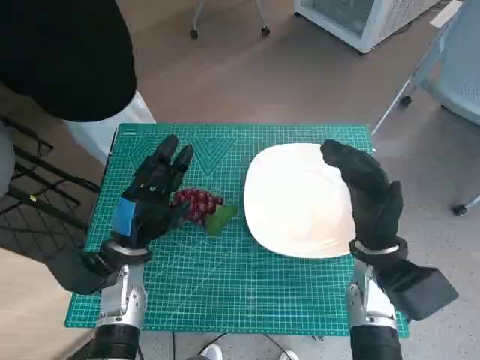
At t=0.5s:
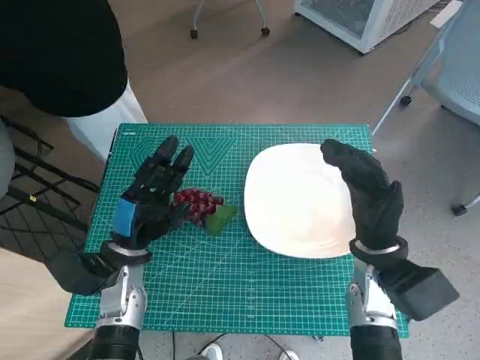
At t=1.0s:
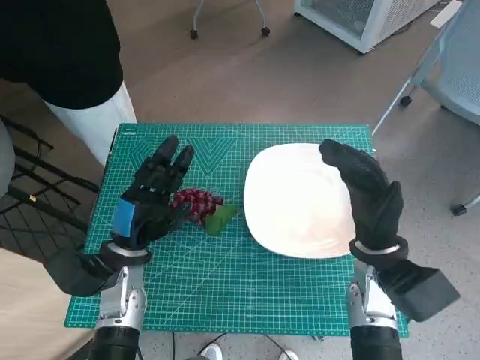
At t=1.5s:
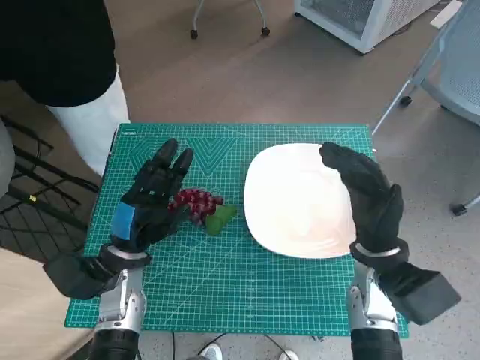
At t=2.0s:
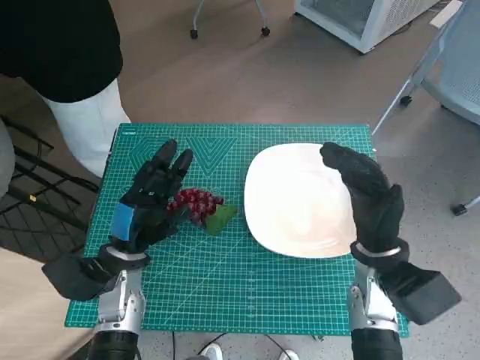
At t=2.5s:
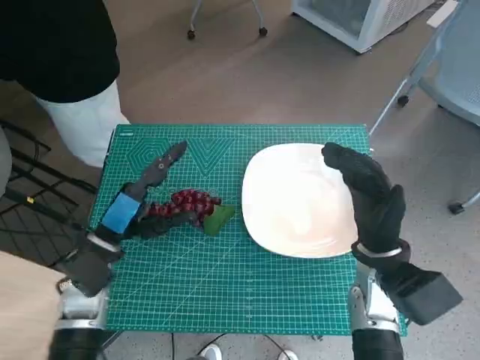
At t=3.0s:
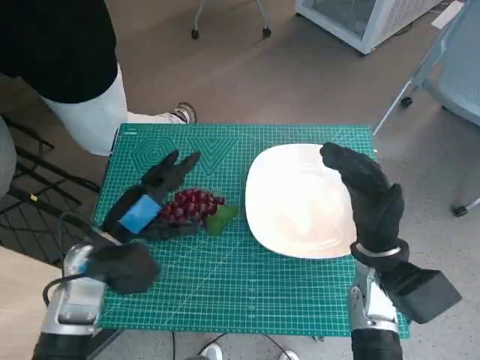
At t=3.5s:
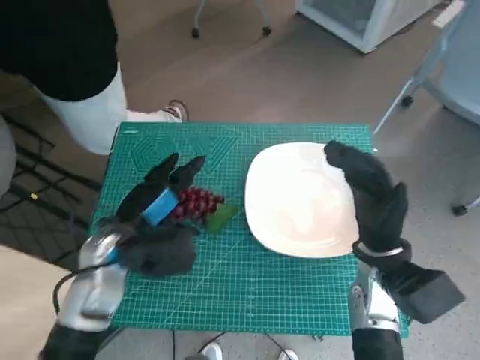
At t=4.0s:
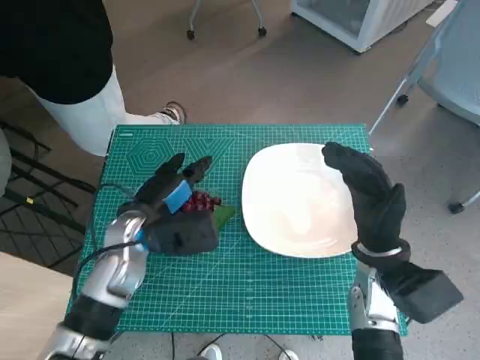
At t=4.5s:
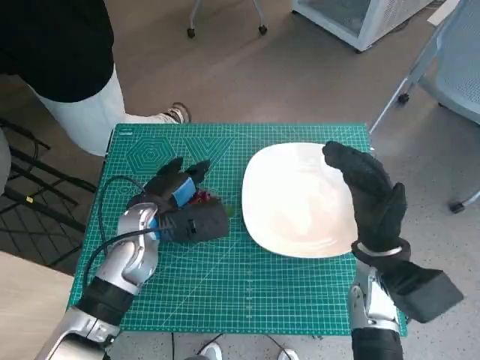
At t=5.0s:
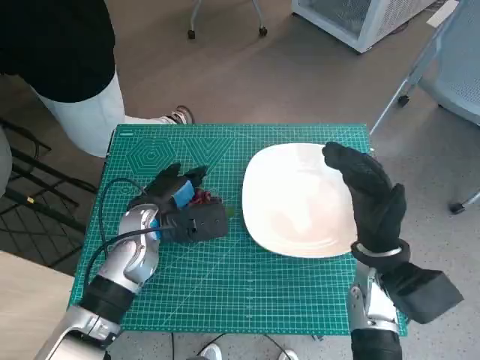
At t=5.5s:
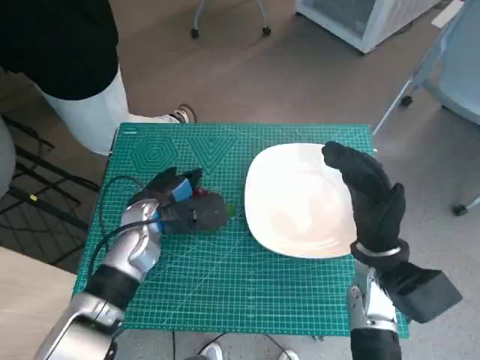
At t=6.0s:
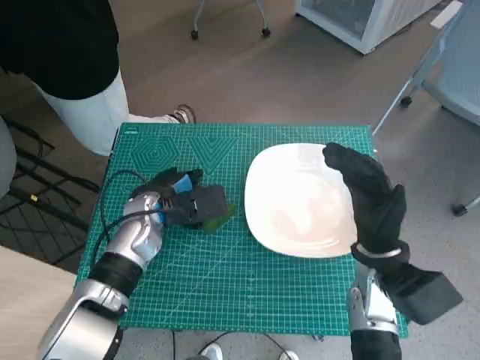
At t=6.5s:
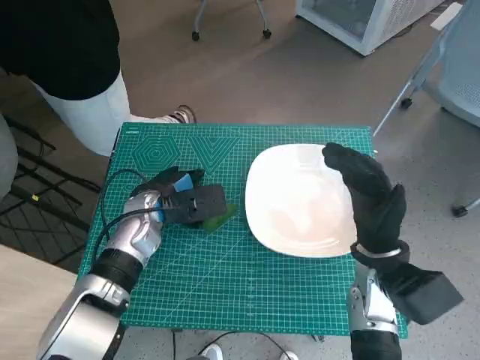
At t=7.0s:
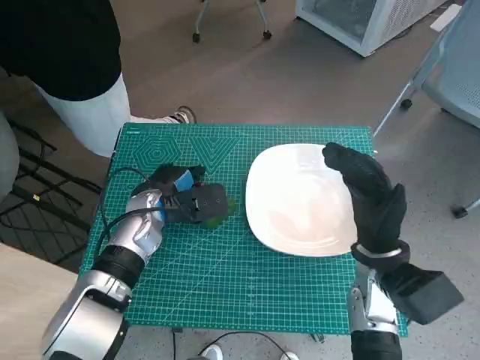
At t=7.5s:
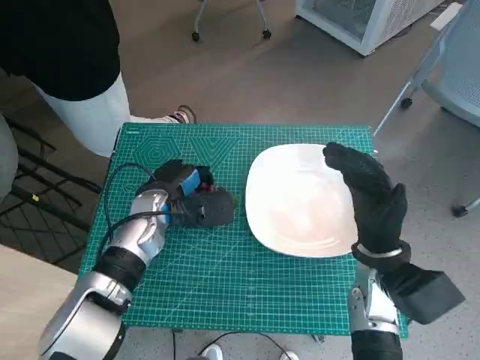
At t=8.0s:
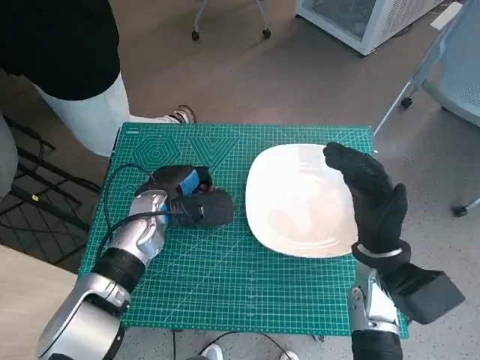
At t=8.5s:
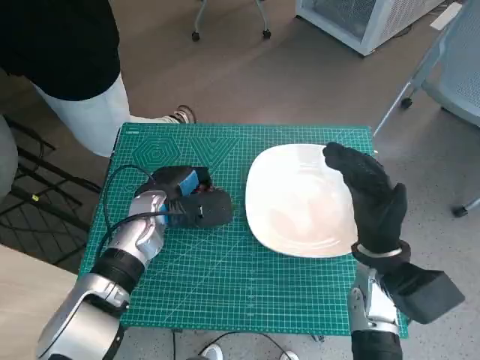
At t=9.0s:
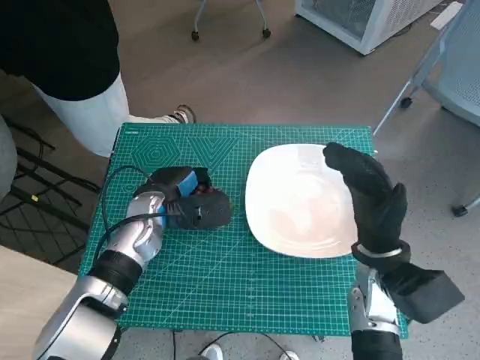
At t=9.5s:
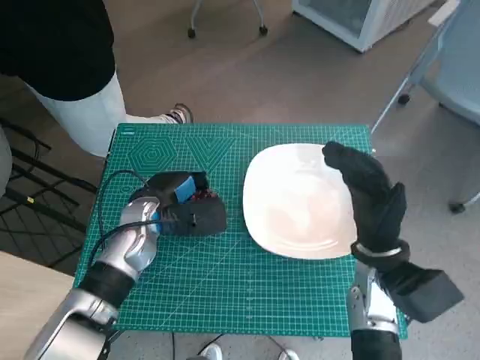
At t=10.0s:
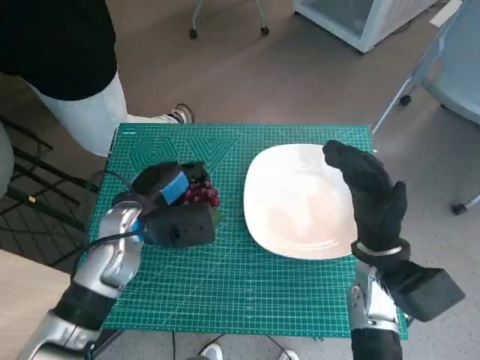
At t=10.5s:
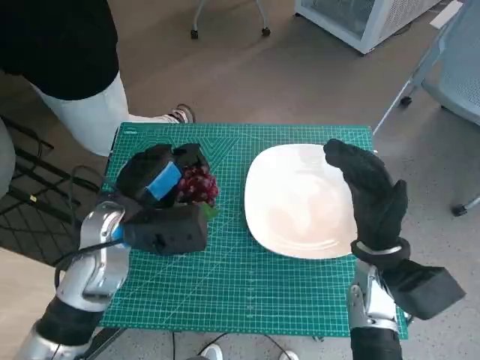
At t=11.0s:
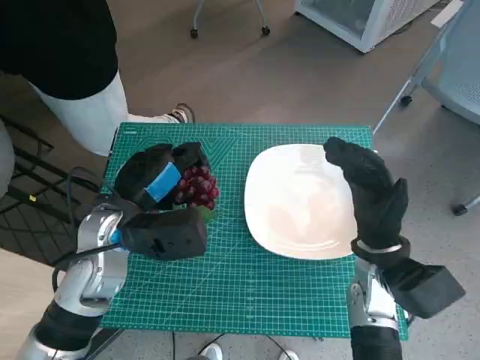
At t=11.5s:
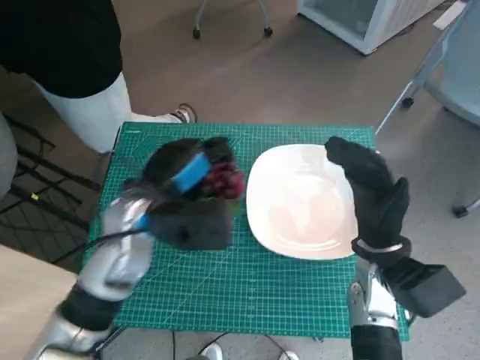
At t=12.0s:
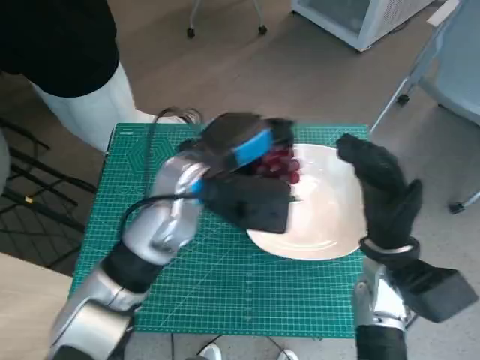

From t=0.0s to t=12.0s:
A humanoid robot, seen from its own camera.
Task of the whole recording: Pick up the grapes and put them on the plate.
Step, from t=0.0s to t=7.0s: Grasp the grapes with left hand.
From t=2.0s to t=4.0s: The left hand moves upward, roughly 5 cm.
From t=6.0s to t=8.0s: The hands make only small movements.
From t=8.0s to t=10.0s: The left hand changes place by about 5 cm.
From t=10.0s to t=12.0s: The left hand travels to the right and upward by approximately 10 cm.

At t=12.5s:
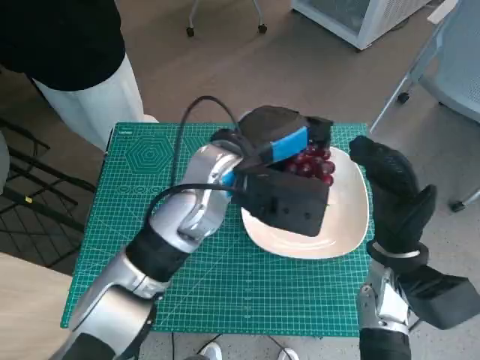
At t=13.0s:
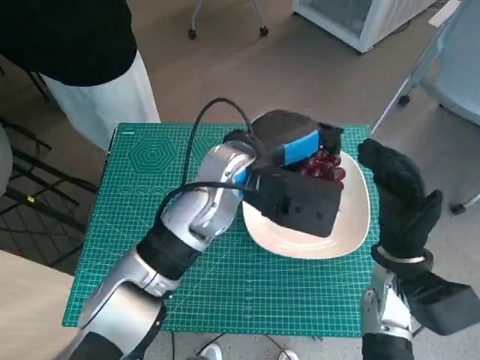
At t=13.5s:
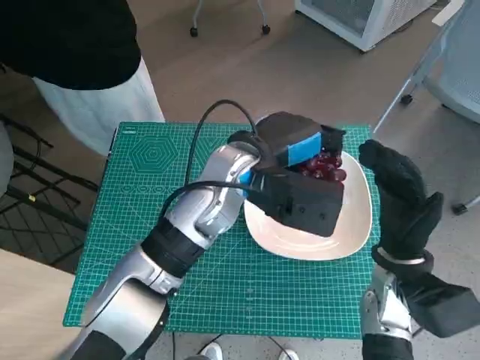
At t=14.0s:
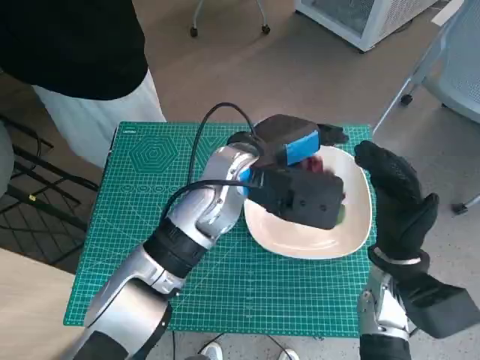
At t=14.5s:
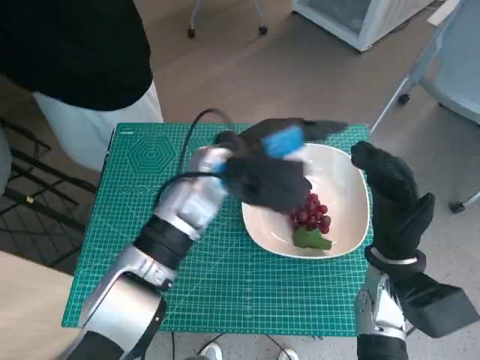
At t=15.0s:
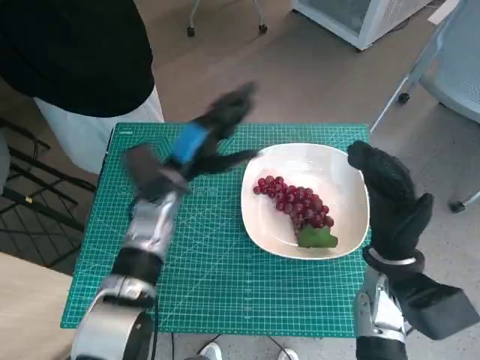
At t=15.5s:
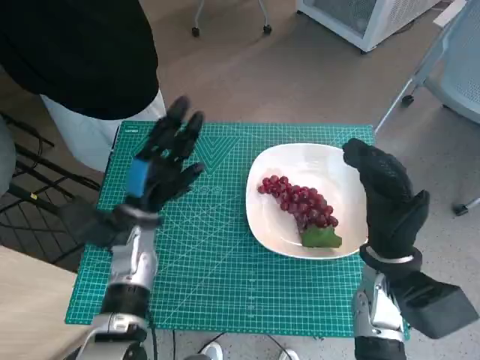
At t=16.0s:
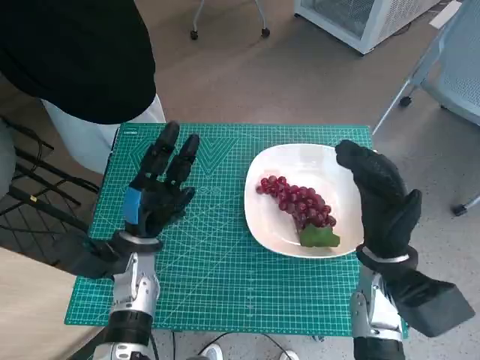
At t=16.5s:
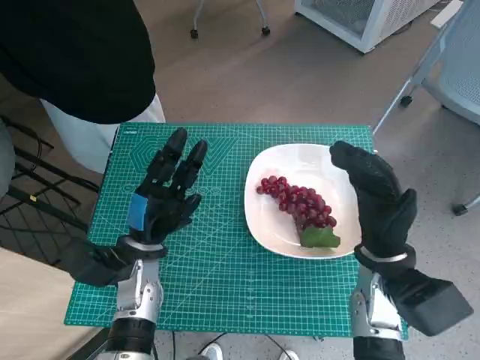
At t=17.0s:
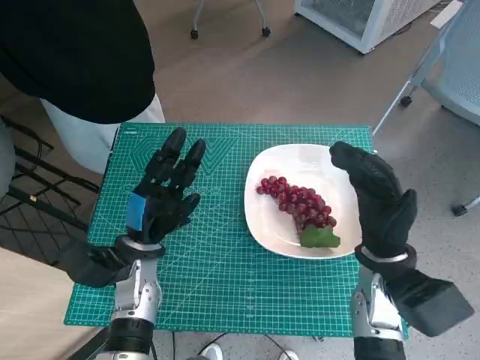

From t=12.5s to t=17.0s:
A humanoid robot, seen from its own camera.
Task of the whole recording: Pick up the grapes and put them on the plate.
From t=14.5s to t=17.0s: The left hand heads downward, to the left and backward, covering approximately 20 cm.

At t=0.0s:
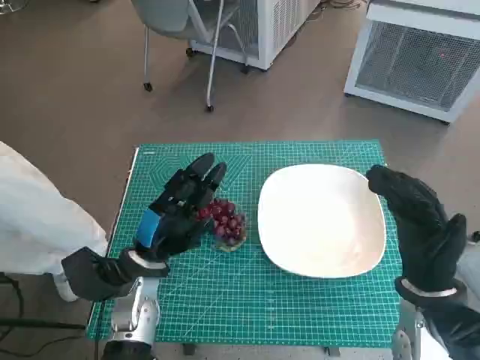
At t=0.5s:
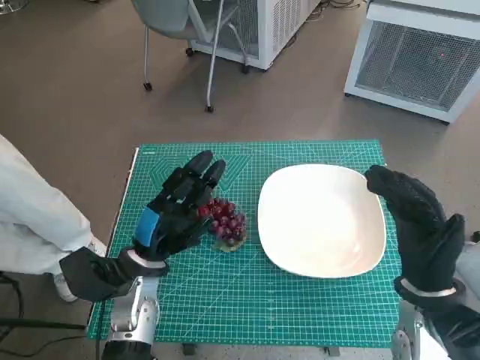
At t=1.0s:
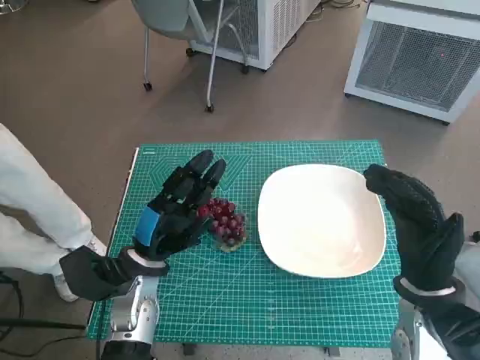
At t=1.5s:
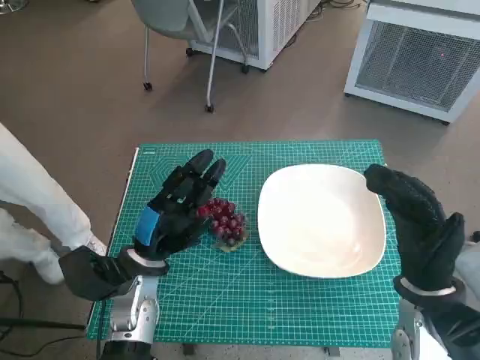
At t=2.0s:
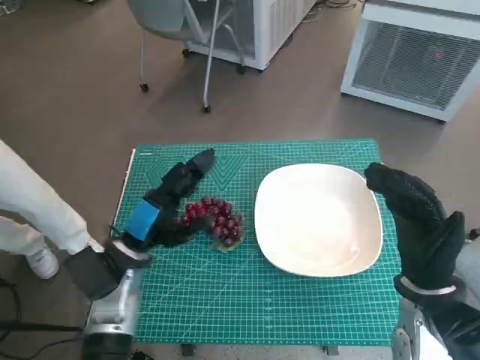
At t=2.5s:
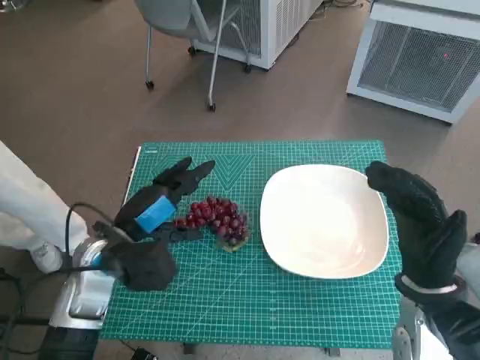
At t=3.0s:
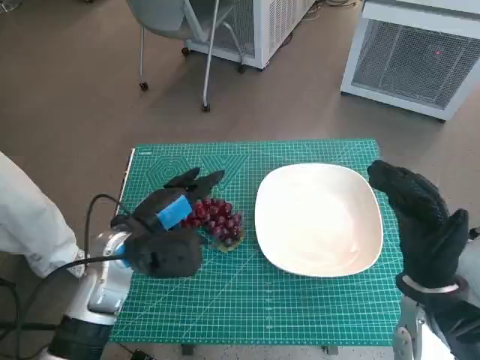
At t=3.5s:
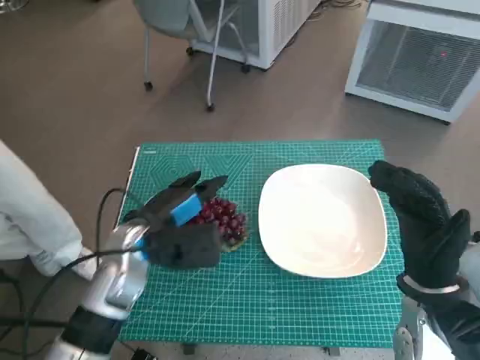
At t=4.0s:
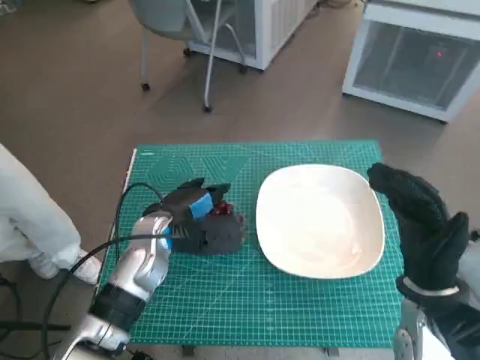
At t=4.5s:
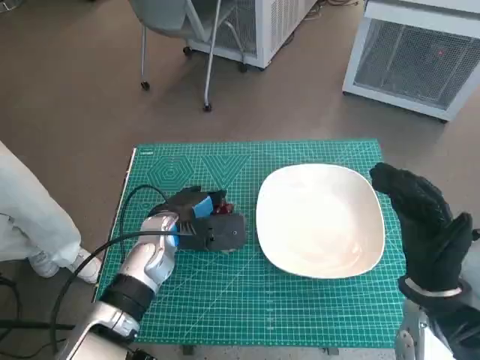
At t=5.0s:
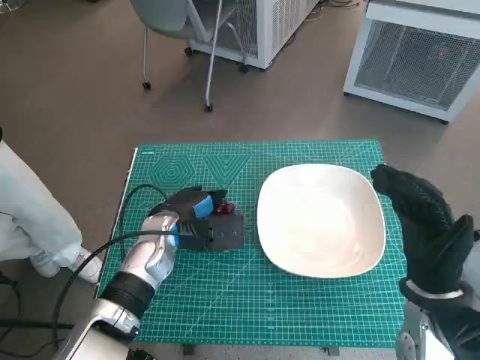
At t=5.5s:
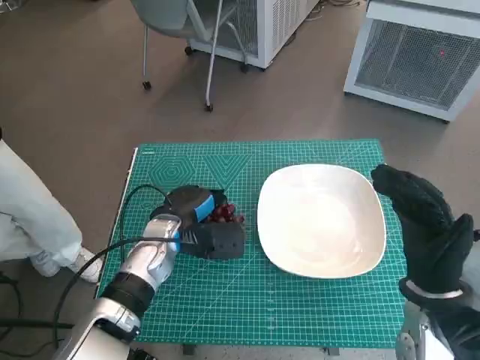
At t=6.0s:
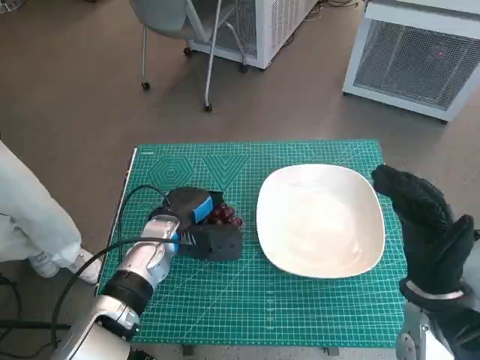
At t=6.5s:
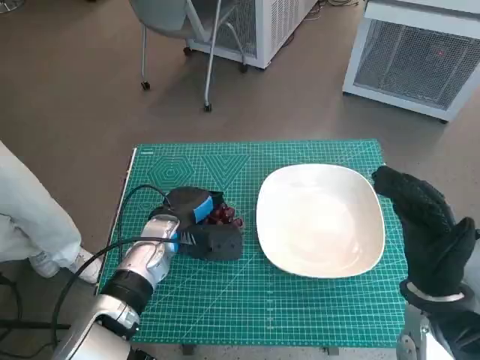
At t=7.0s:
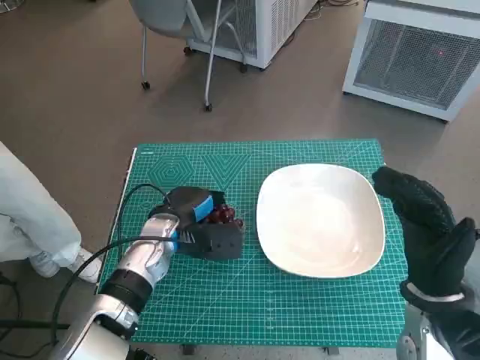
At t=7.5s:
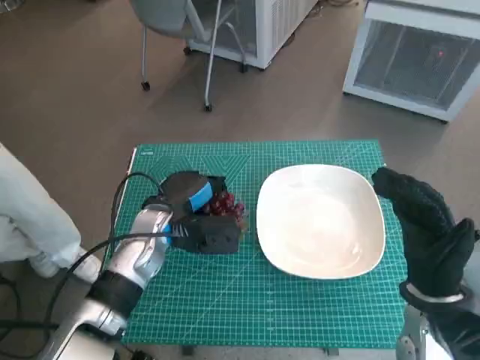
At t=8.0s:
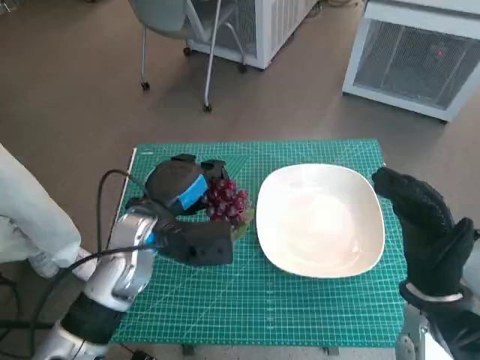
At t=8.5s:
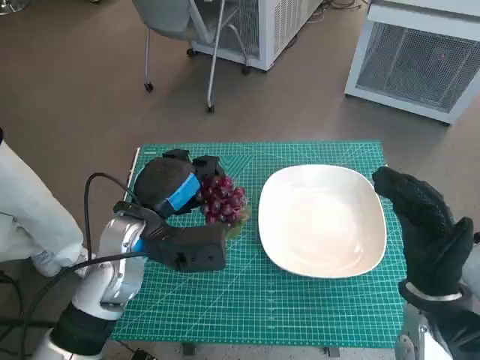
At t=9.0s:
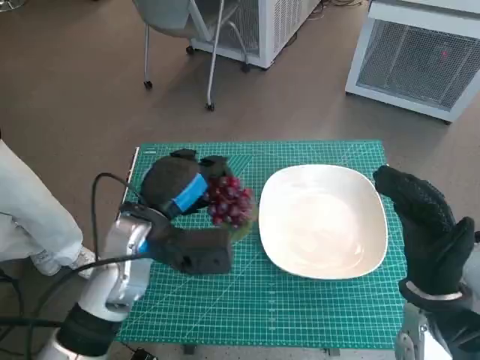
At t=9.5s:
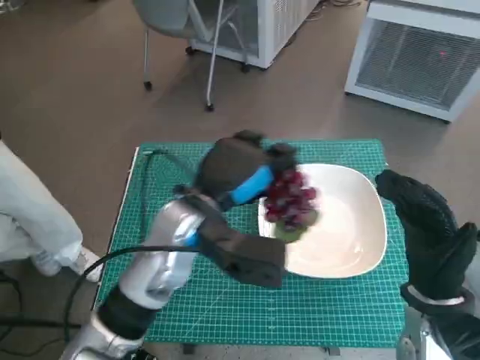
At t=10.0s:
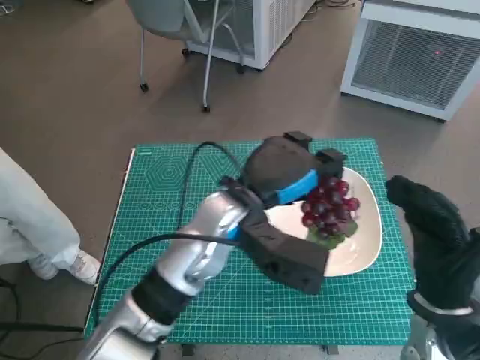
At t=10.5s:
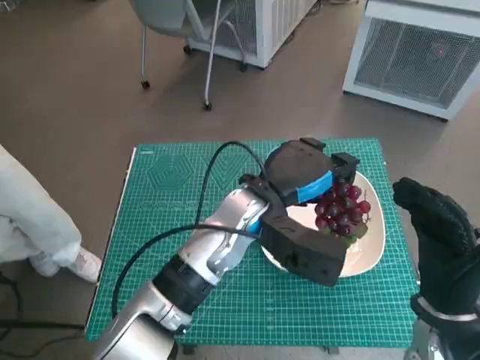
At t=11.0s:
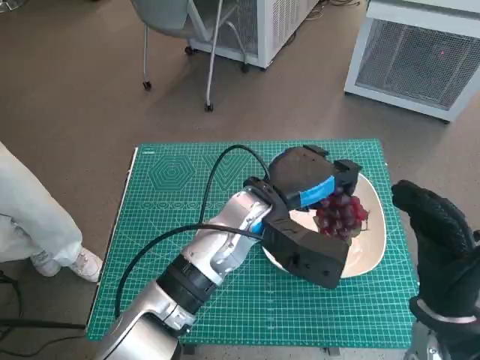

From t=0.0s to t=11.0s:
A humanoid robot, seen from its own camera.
Task of the whole recording: Pick up the grapes and put them on the plate.
Step, from t=0.0s to t=5.5s: Grasp the grapes with left hand.
From t=2.0s to t=3.5s: The left hand shifts by about 5 cm.
From t=3.5s to t=5.5s: The left hand shifts by some 5 cm.
From t=5.5s to t=7.5s: The hands stay close to where they were, moving slightly.
From t=7.5s to t=9.0s: The left hand is displaced upward by about 5 cm.
From t=9.0s to t=11.0s: The left hand travels to the right by roughly 15 cm.
